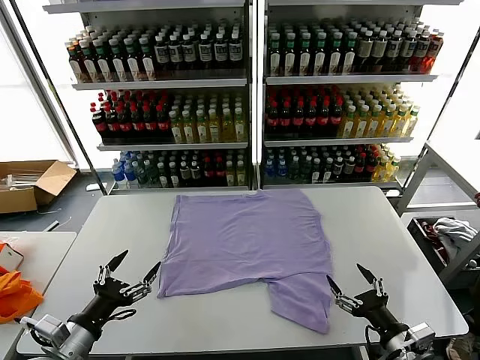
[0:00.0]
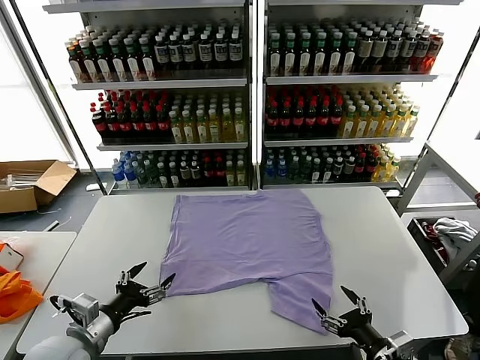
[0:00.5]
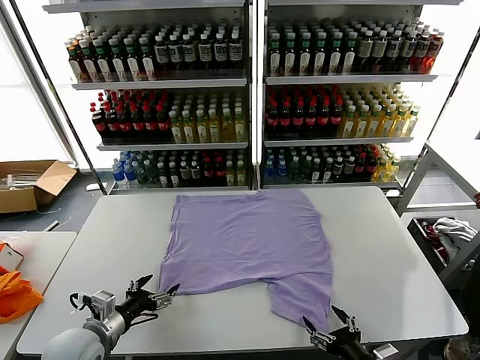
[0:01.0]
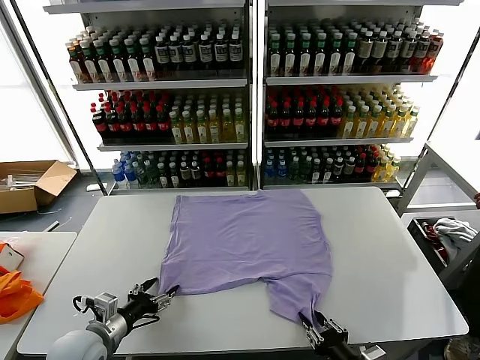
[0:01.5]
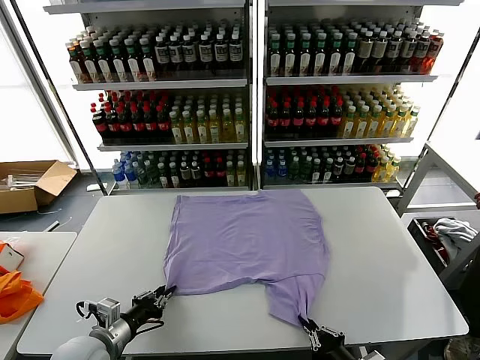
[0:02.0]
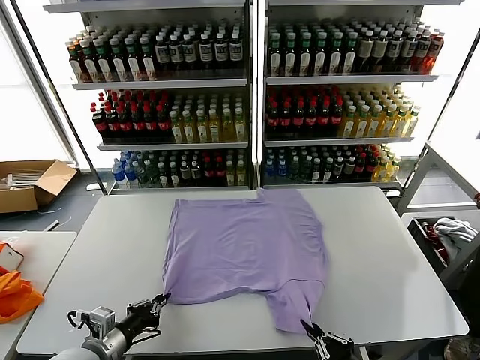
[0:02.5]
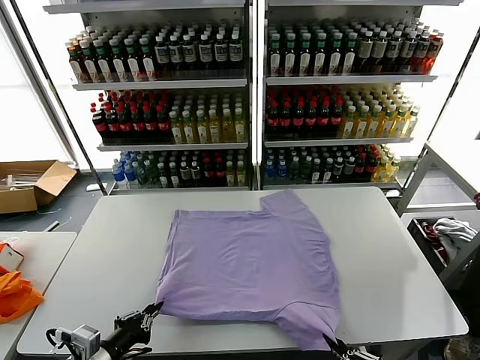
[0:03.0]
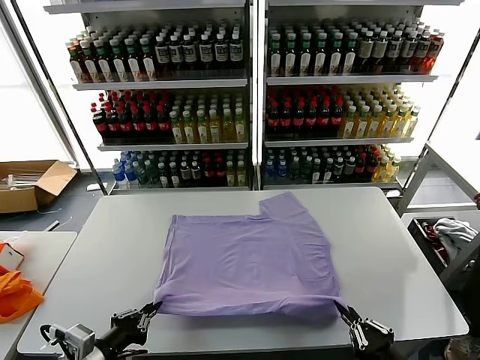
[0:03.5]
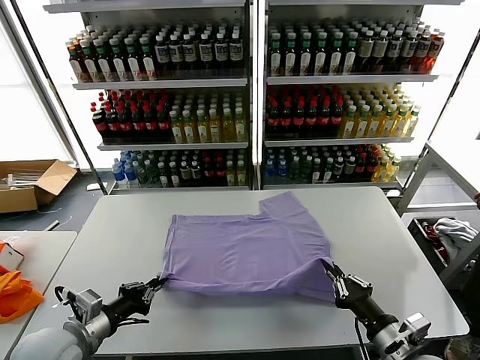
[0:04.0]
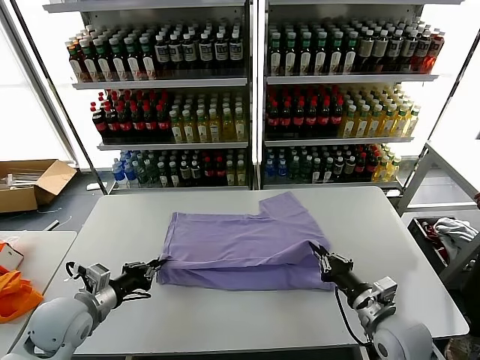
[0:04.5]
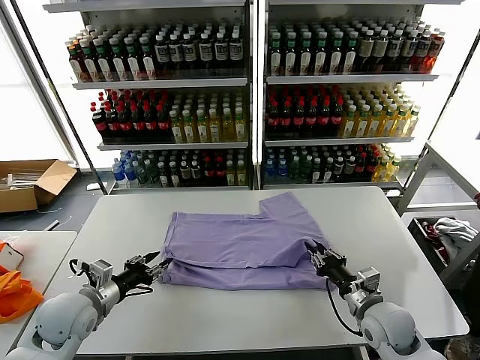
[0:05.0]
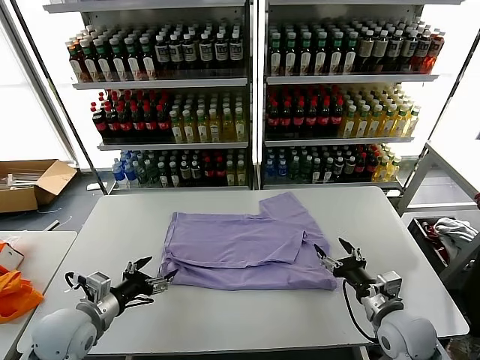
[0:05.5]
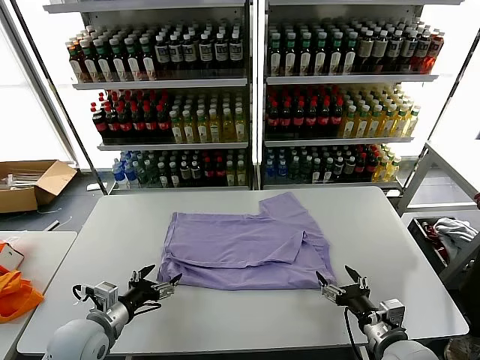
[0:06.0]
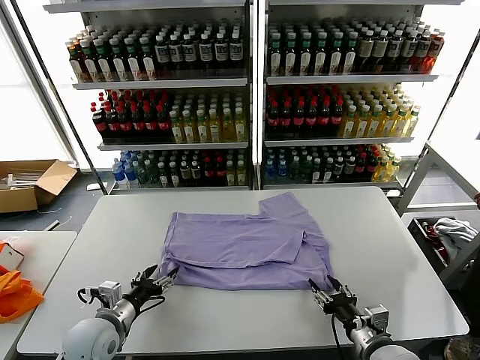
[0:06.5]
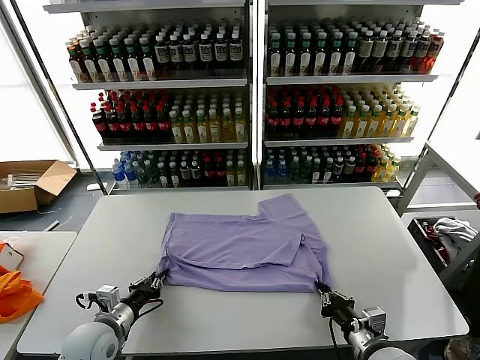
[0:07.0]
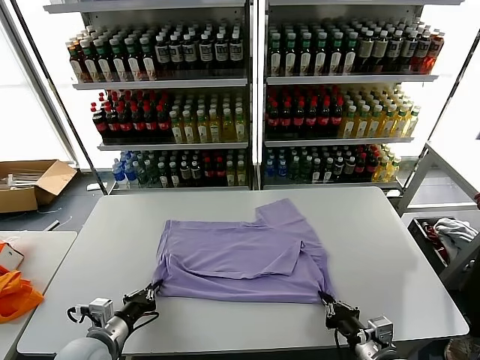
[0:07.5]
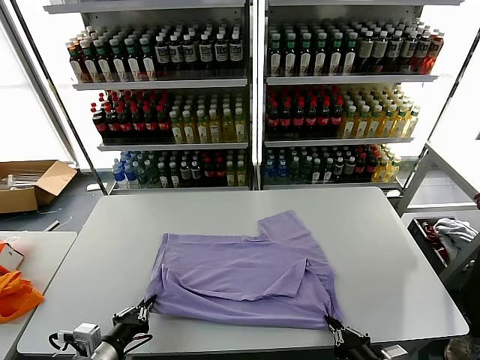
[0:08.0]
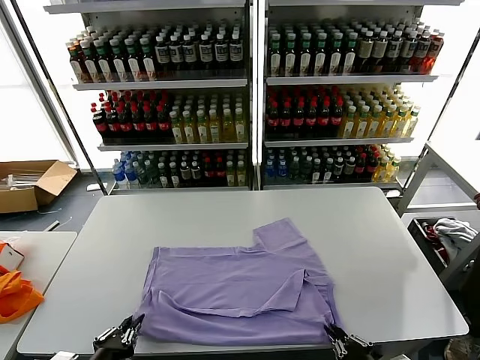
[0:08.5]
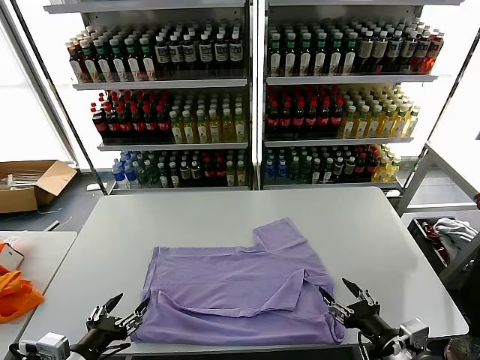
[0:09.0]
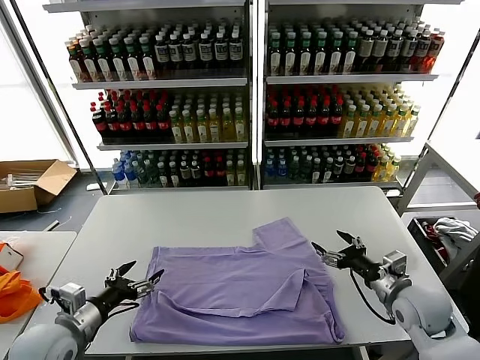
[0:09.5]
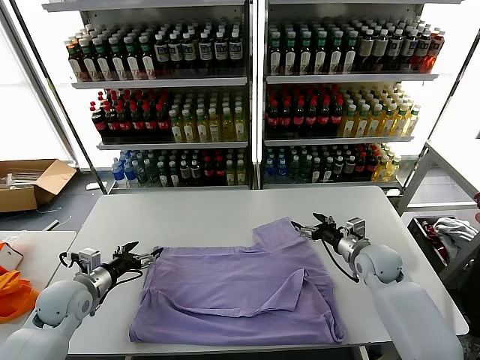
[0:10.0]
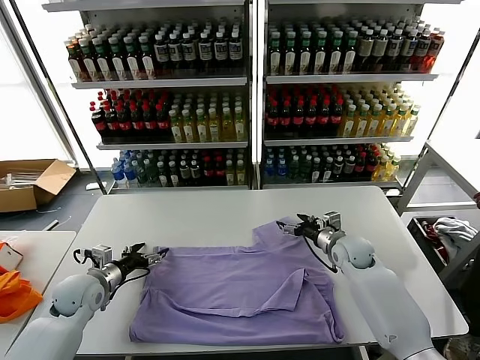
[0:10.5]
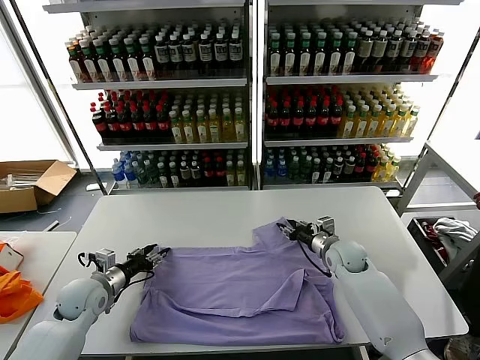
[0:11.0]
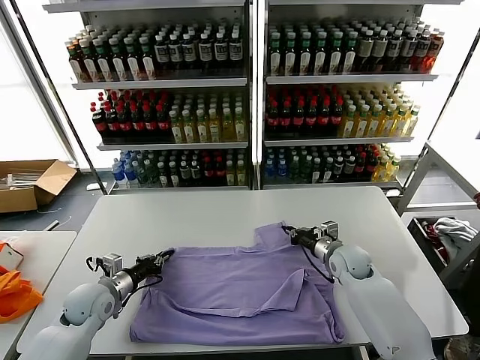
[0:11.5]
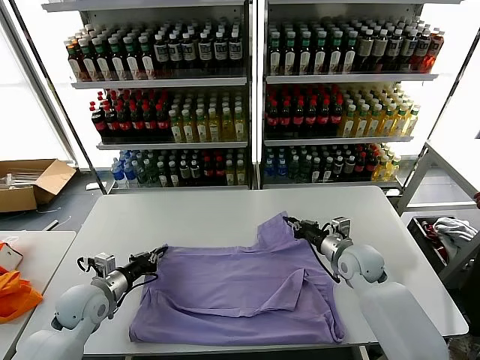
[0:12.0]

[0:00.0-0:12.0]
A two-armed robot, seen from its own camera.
Task of the whole recording: fold and organize the clothes.
Step, 0.0 to 2.0 s: use both grippers simultaneously to clamp the lower edge of the clothing fabric.
Step, 2.5 to 5.0 s: use both grippers to drag the lower edge of the fabric forward and fold it over the upper edge.
Step, 5.5 to 8.5 s: Drag the clothes downward with both gripper.
Step, 9.0 to 11.5 s: use both grippers simultaneously to clamp the upper edge of the clothing fabric.
2.0 to 4.0 s: The right gripper is displaced forward and upward by about 10 cm. Meanwhile the left gripper heads upward, covering some 10 cm.
4.0 to 6.0 s: The left gripper is displaced downward by approximately 5 cm, and opens its fingers. Meanwhile the right gripper moves about 10 cm forward and comes back, and opens up.
6.0 to 8.0 s: The grippers both shift backward by approximately 10 cm. The left gripper closes up, while the right gripper closes up.
8.0 to 10.0 s: The right gripper is displaced forward by approximately 35 cm, and opens its fingers; the left gripper shifts roughly 20 cm forward and to the left, and opens up.
10.0 to 12.0 s: The right gripper closes up. Meanwhile the left gripper closes up.

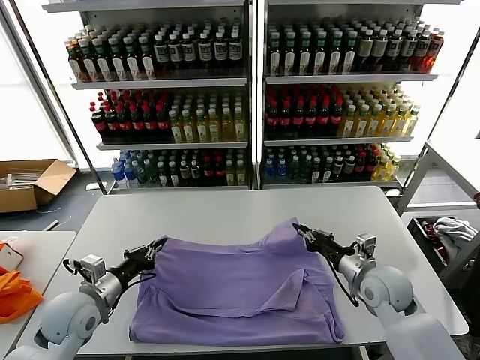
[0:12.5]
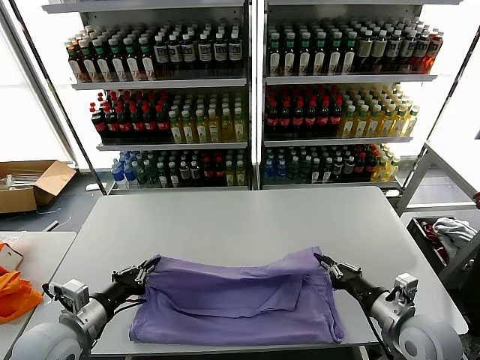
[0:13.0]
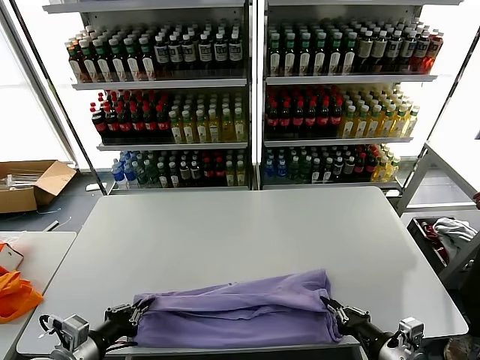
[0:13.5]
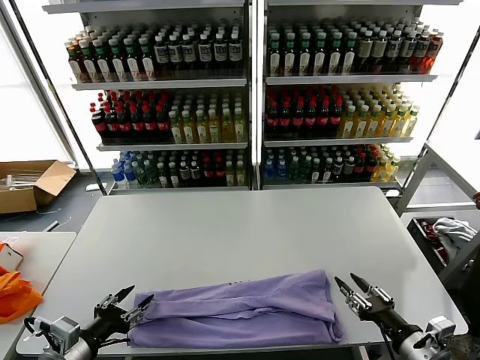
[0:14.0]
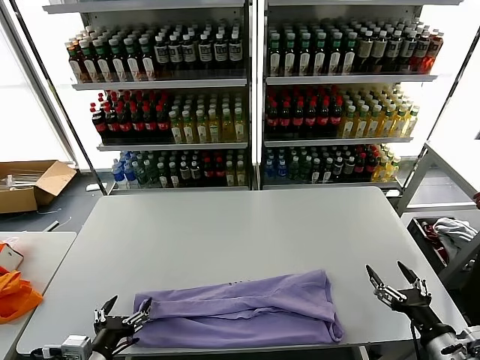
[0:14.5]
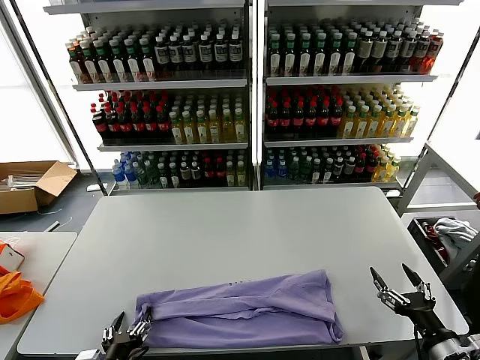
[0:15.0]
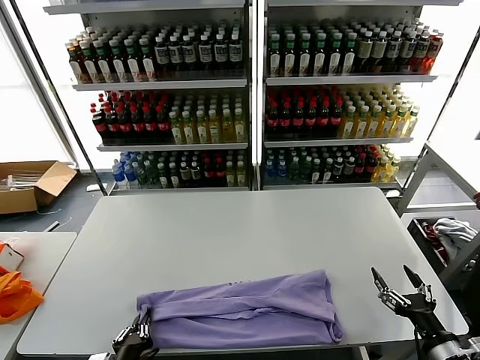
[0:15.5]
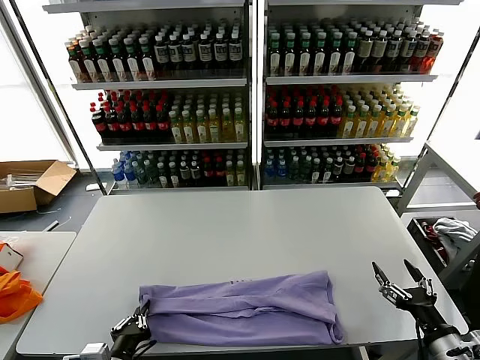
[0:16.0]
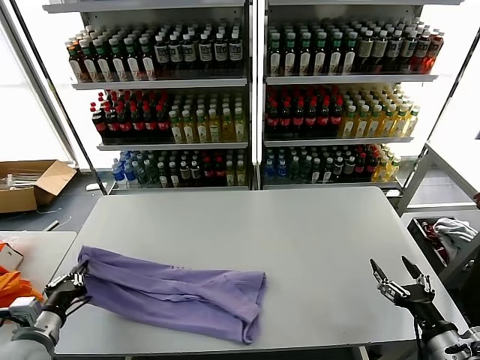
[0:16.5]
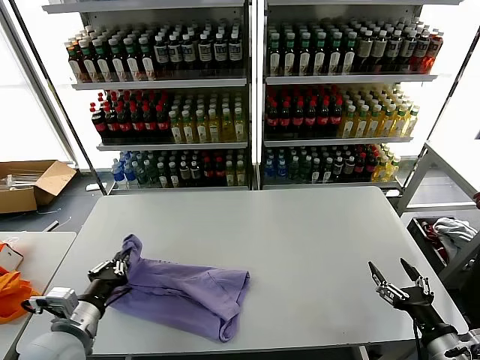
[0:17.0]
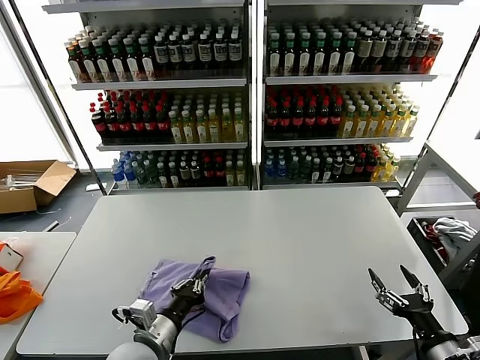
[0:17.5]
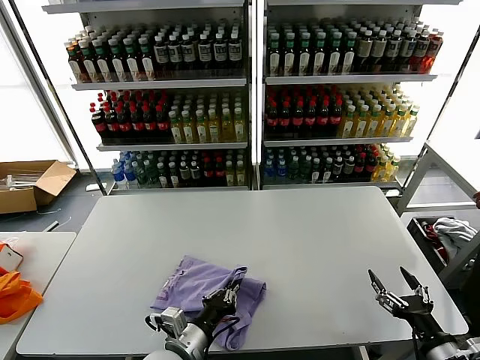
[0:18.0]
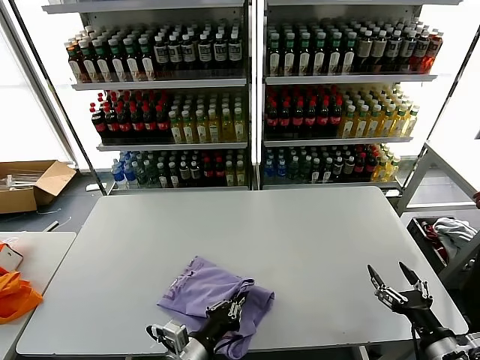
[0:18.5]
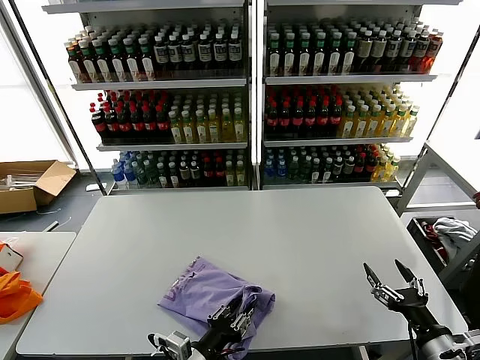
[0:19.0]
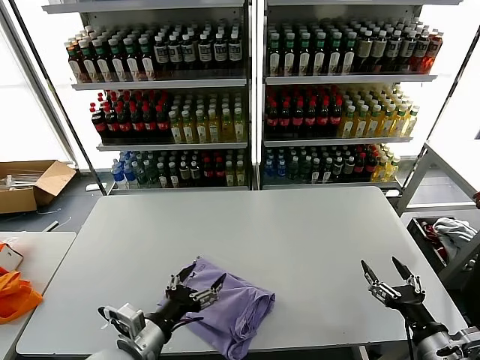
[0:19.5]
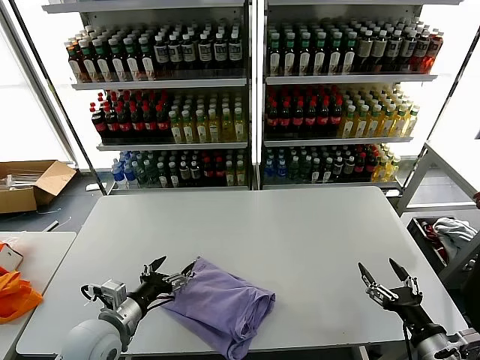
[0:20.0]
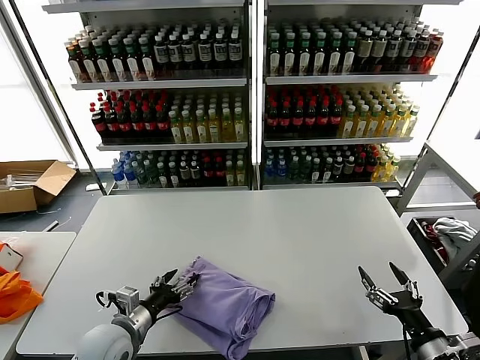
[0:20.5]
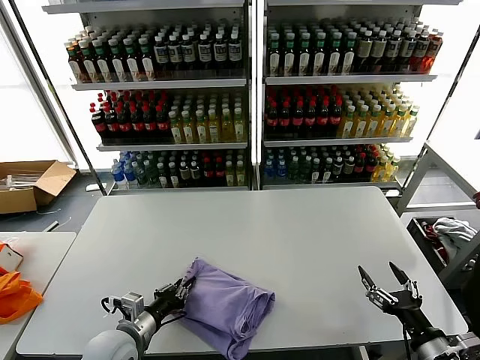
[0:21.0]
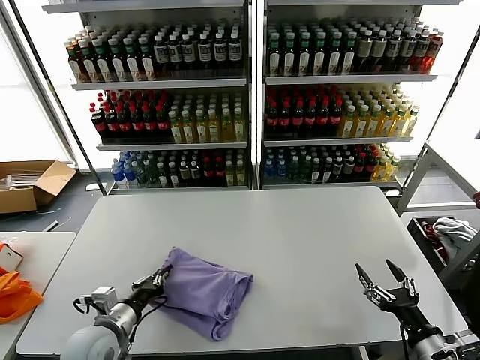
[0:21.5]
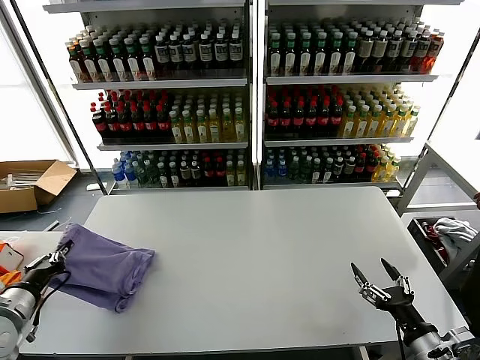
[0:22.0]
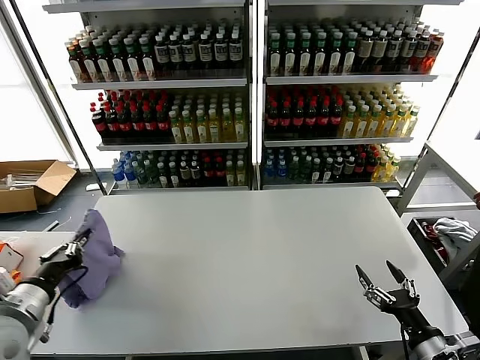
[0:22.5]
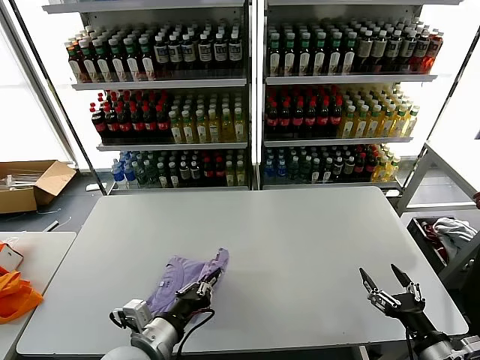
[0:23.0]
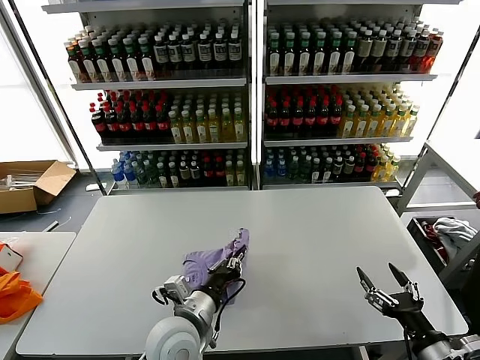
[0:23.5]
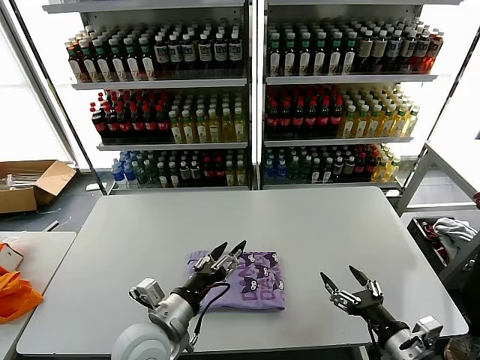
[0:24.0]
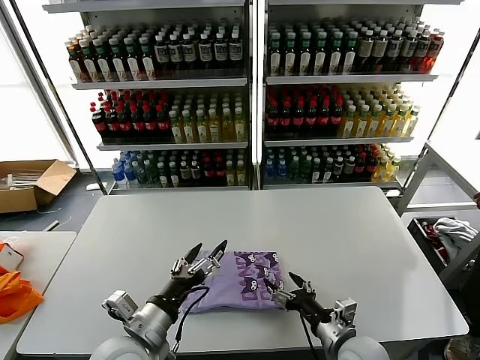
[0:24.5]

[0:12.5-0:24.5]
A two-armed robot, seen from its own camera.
Task of the whole recording: fold and organize the clothes.
Step, 14.0 to 15.5 s: use the left gripper to clamp the left edge of the fabric.
Step, 16.0 to 19.0 s: use the left gripper to drag the left edge of the fabric to the left and folds it over the right edge.
Step, 19.5 to 23.5 s: Flip the folded clothes over with left gripper.
12.5 to 14.5 s: The right gripper goes about 20 cm backward and to the right, and opens, while the left gripper is displaced backward by approximately 15 cm, and opens up.
14.5 to 16.5 s: The left gripper travels to the left and forward by roughly 10 cm, and closes.
16.5 to 18.5 s: The left gripper goes roughly 25 cm to the right.
18.5 to 20.5 s: The left gripper travels to the left and forward by about 15 cm, and opens up.
20.5 to 22.5 s: The left gripper moves to the left and upward, some 20 cm, and closes.
22.5 to 24.5 s: The left gripper goes approximately 20 cm to the right, and opens its fingers; the right gripper shifts approximately 15 cm to the left and forward.

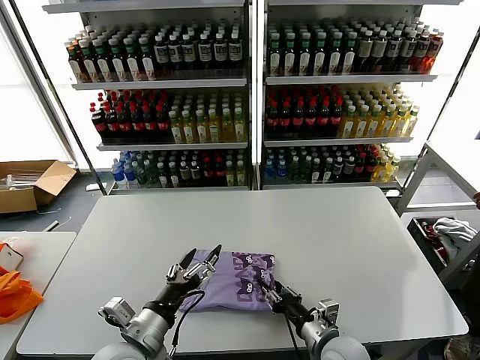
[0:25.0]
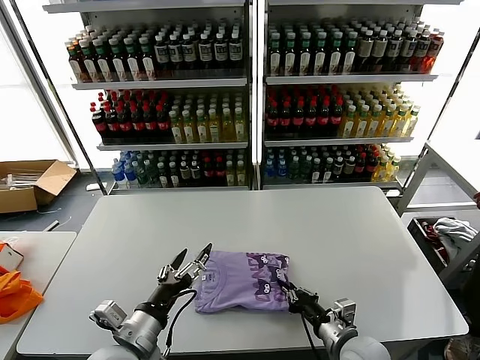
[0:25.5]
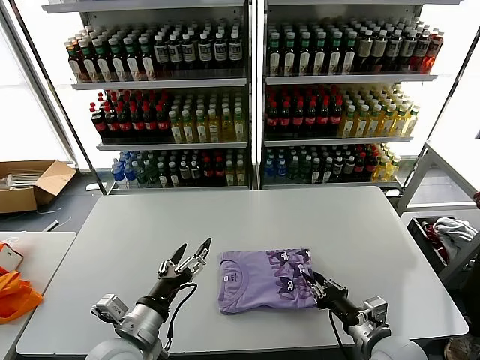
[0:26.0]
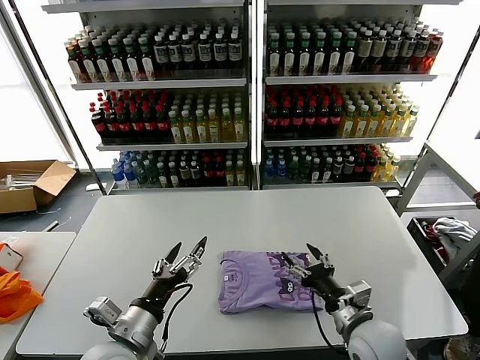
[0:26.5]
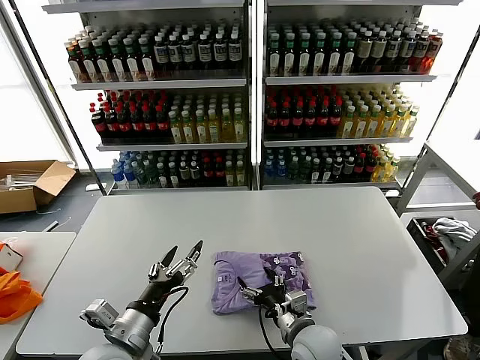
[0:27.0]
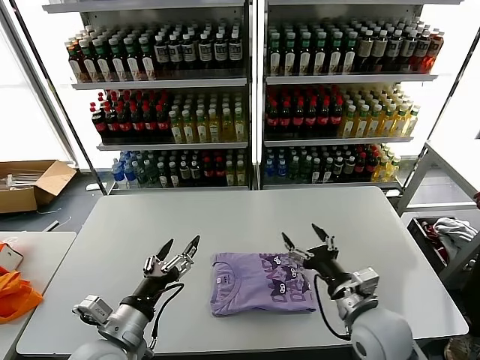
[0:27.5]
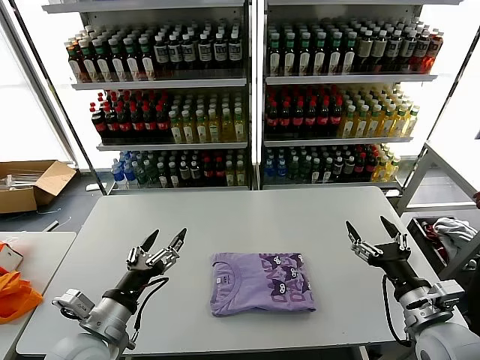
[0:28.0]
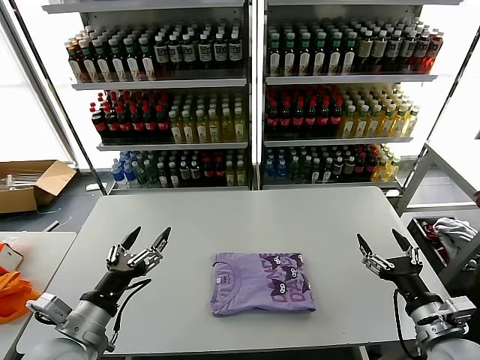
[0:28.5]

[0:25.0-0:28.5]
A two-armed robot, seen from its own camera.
Task of the whole recording: fold and organize the clothes.
Step, 25.0 to 27.0 s: Drag the clothes to the center of the table.
25.0 to 27.0 s: The right gripper moves to the left, roughly 5 cm, and opens its fingers.
27.0 to 28.5 s: The right gripper goes some 25 cm to the right and upward; the left gripper is displaced to the left by roughly 5 cm.
